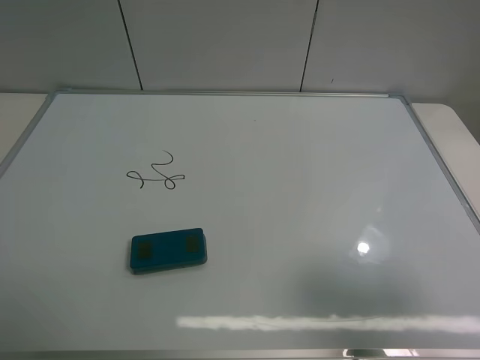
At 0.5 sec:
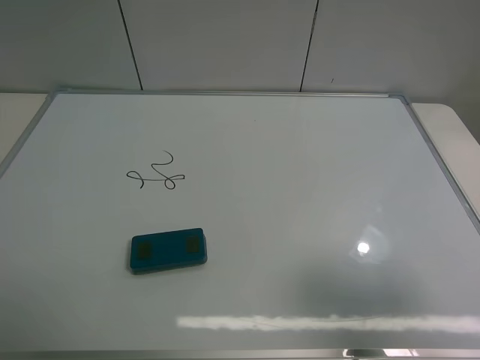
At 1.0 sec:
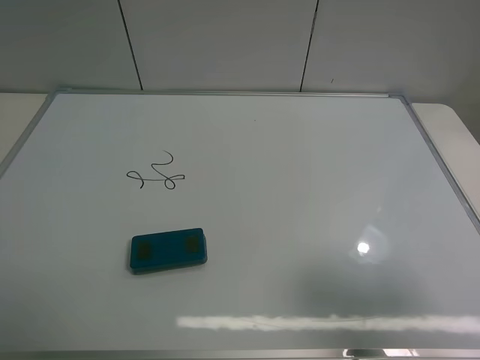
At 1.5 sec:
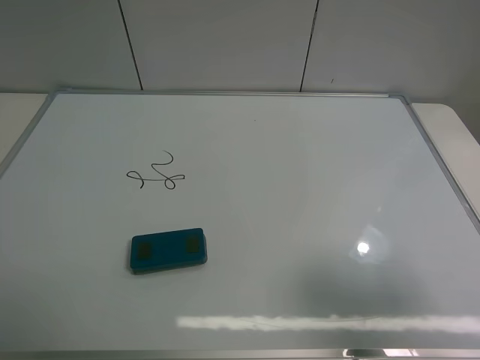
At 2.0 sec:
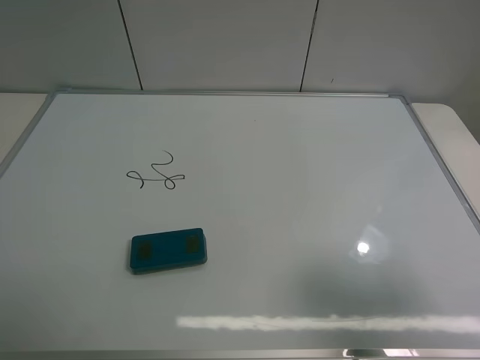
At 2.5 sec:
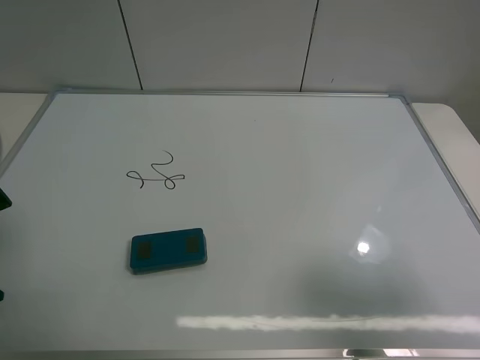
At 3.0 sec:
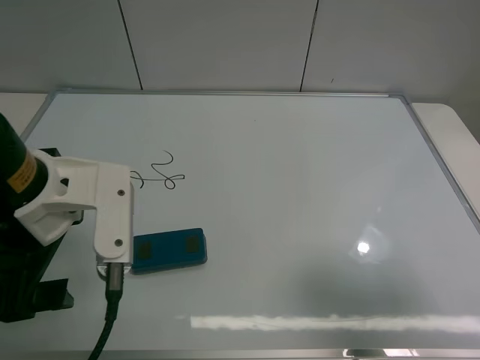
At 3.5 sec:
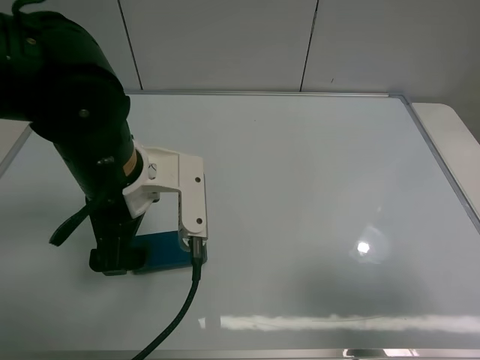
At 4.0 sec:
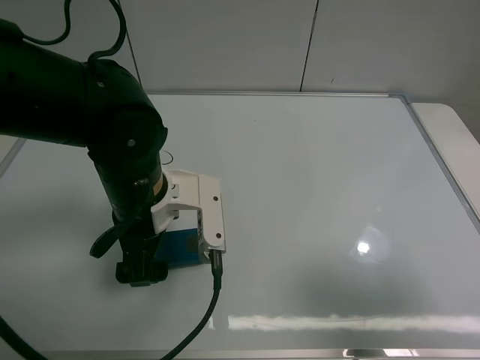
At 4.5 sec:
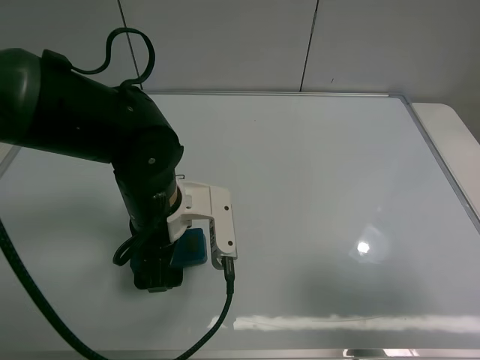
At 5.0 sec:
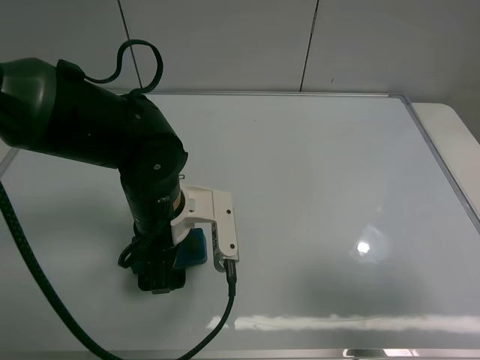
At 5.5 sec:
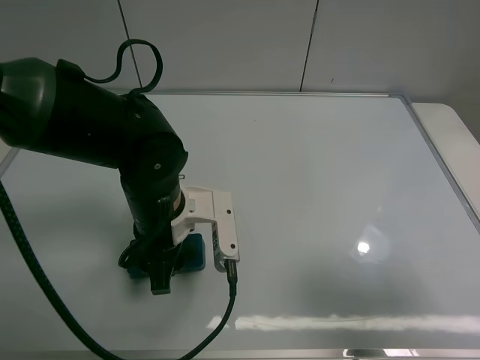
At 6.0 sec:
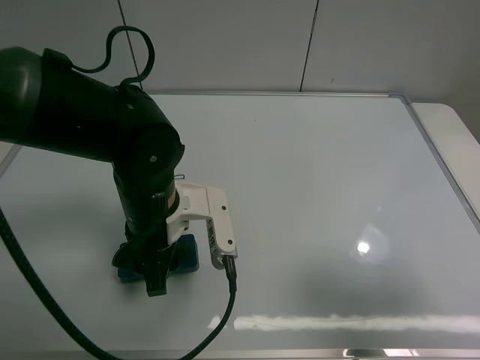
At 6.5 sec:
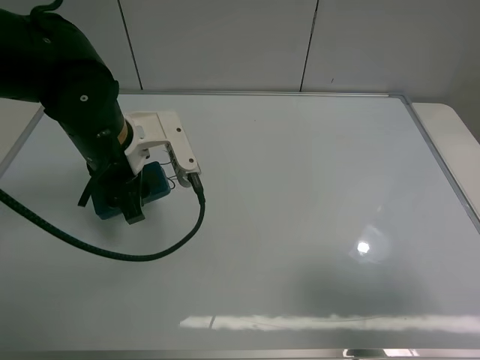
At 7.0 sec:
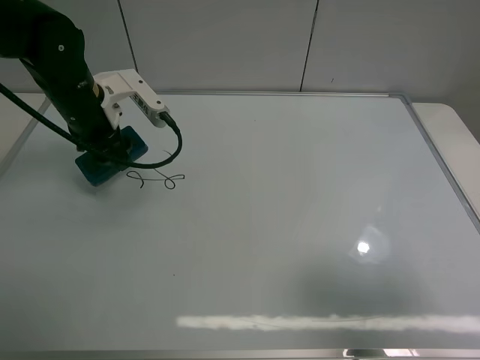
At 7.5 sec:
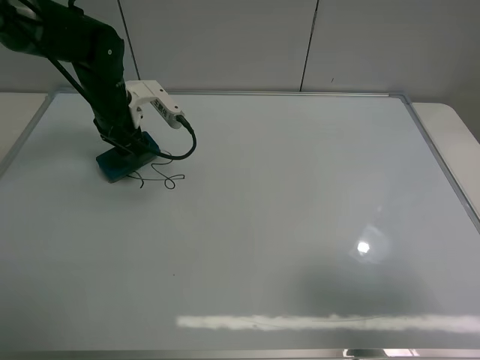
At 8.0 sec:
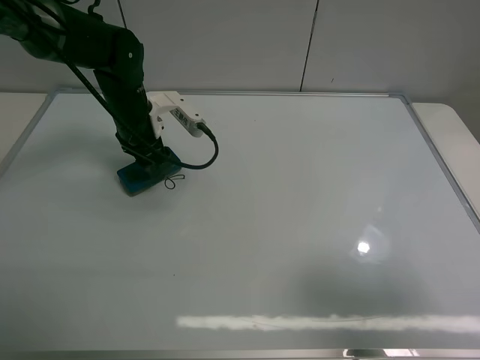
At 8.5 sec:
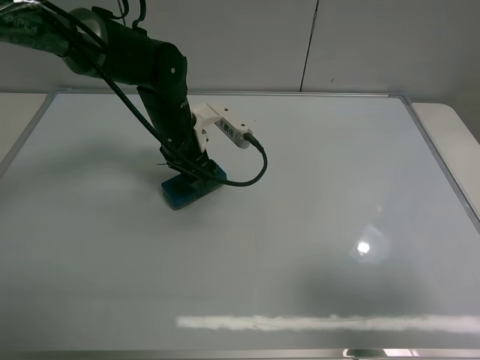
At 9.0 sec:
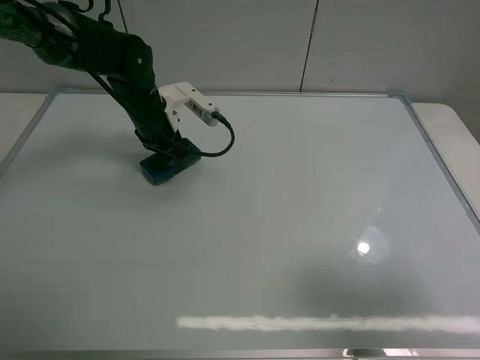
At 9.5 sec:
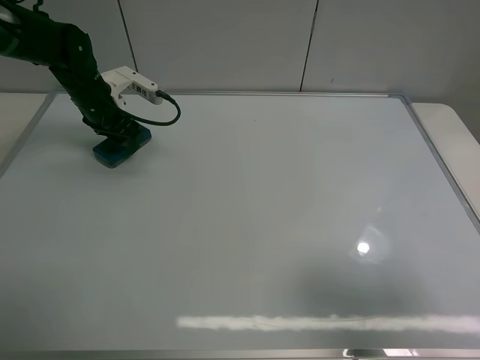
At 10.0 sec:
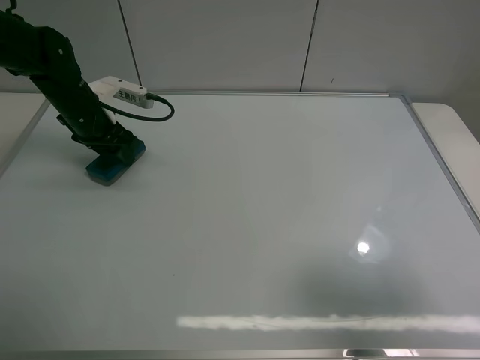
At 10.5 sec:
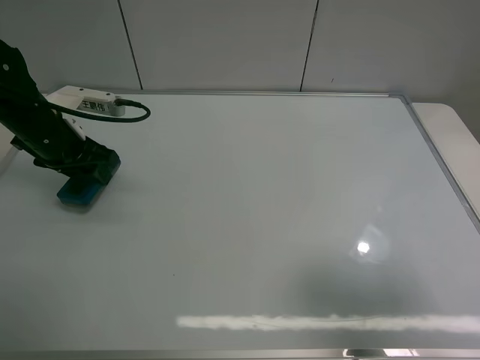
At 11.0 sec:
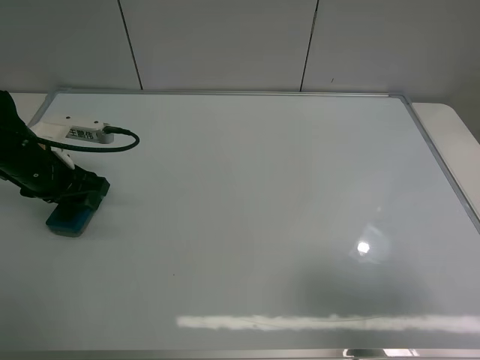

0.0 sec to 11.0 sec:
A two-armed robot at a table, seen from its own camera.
Task of the whole recording: use the left claw to pick up the whiteboard eraser, wipe the notes on the whiteboard clean, and then put them back in place.
Step, 0.0 sec to 5.5 sec: Grasp the eraser with the left gripper.
Step, 6.0 sec to 9.5 sec: Grasp the eraser and wipe the blackboard with the left gripper.
2.0 sec to 3.5 sec: The left gripper shifts about 25 cm to the right, downward and forward.
3.5 sec to 5.5 sec: The left gripper is displaced downward by about 5 cm, and closes up.
5.5 sec to 7.5 sec: The left gripper travels forward and to the left by some 20 cm.
7.5 sec to 9.0 sec: The left gripper travels to the right and back again, approximately 10 cm each way.
9.0 sec to 11.0 sec: The left gripper moves backward and to the left, approximately 15 cm.

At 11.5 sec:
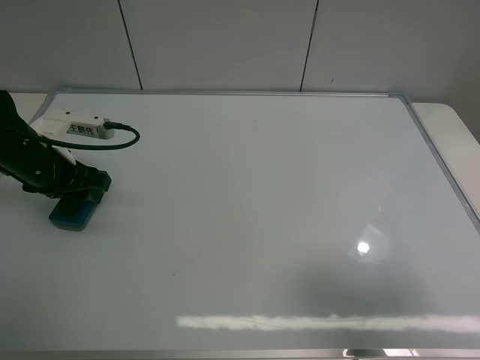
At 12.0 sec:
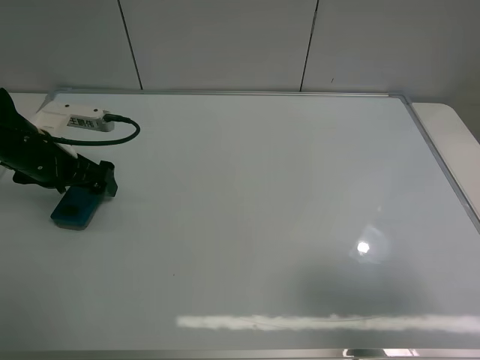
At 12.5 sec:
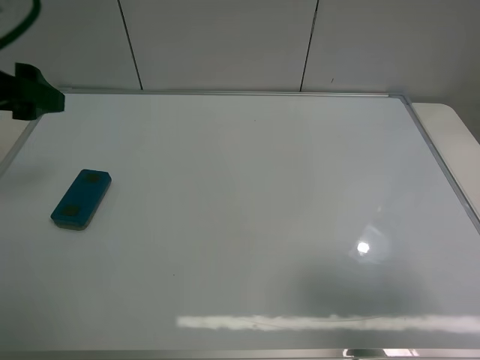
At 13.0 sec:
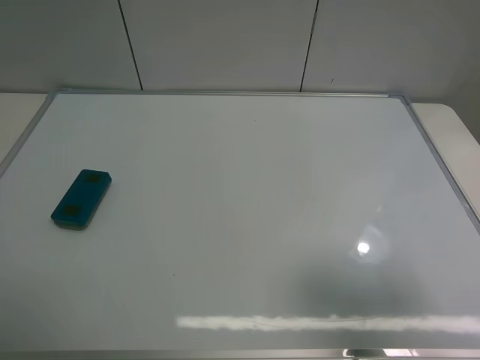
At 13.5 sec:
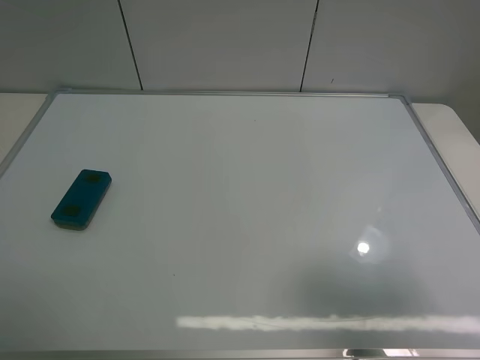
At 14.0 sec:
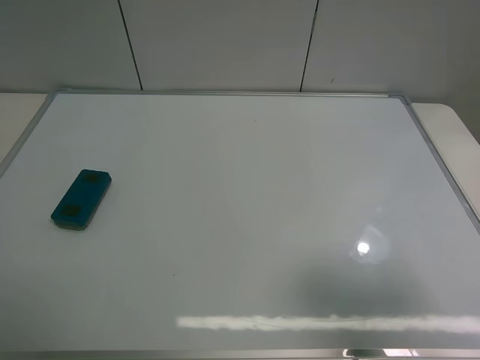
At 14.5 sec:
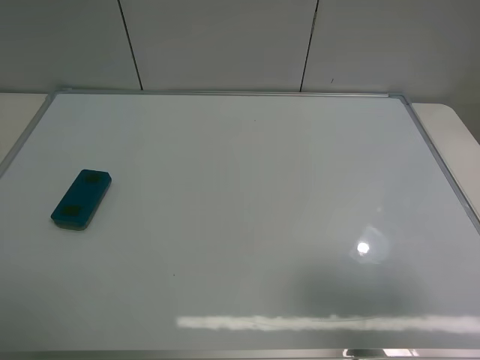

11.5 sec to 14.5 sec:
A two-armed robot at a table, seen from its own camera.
Task of the whole recording: use the left claw to pick up the whiteboard eraser, wipe the notes on the whiteboard clean, and then put them back in place.
11.5 sec to 13.0 sec: The left gripper is displaced upward and backward by about 35 cm, and opens.
